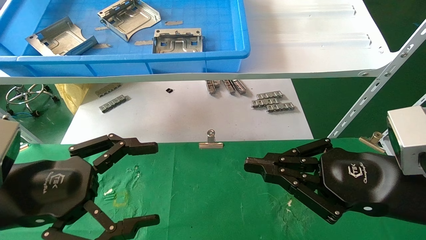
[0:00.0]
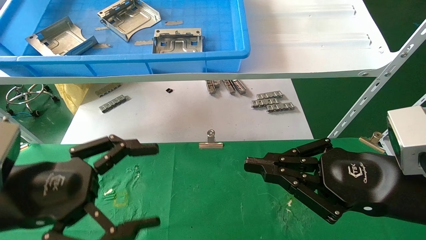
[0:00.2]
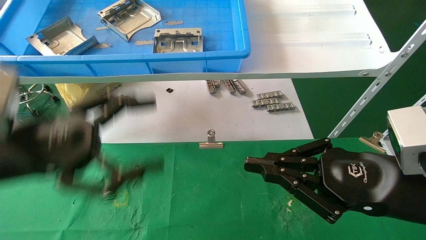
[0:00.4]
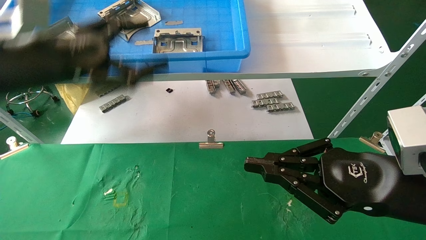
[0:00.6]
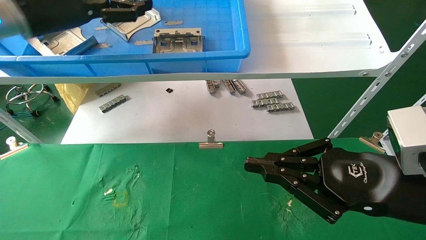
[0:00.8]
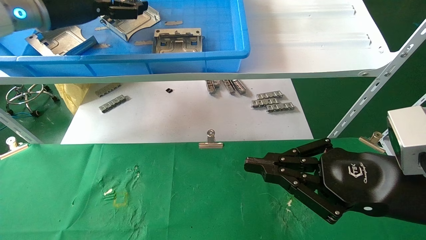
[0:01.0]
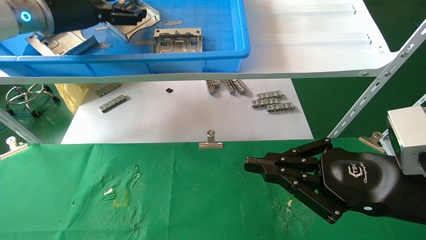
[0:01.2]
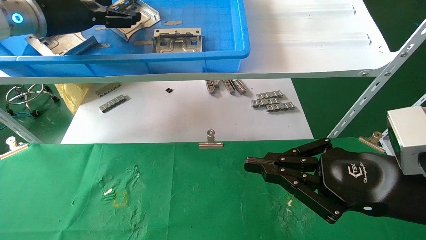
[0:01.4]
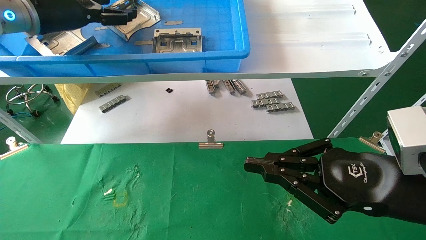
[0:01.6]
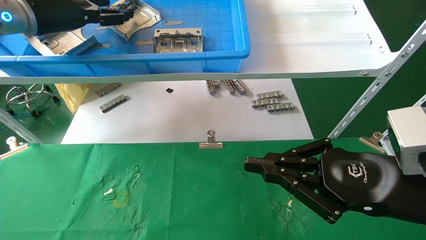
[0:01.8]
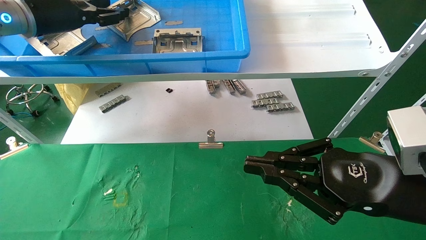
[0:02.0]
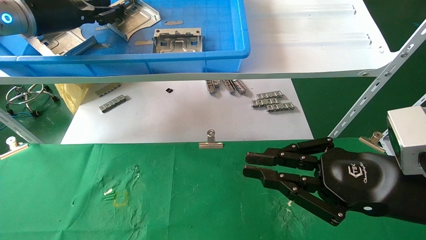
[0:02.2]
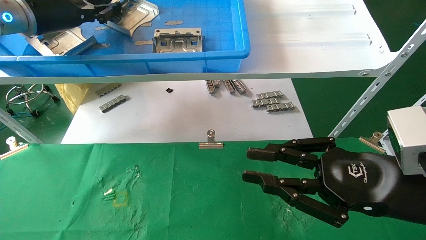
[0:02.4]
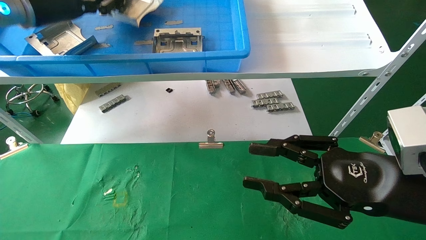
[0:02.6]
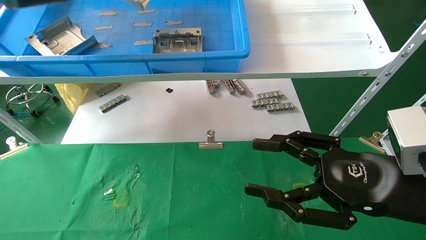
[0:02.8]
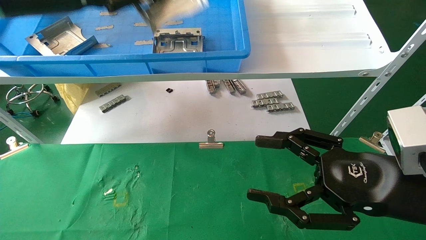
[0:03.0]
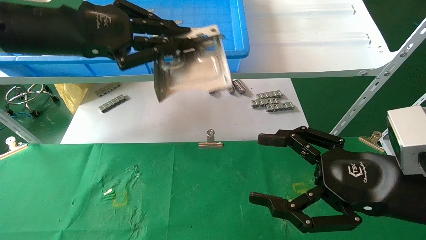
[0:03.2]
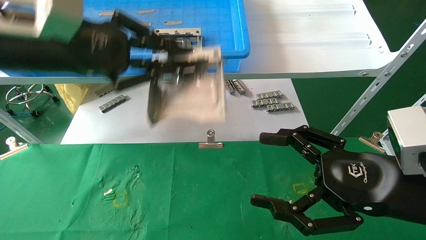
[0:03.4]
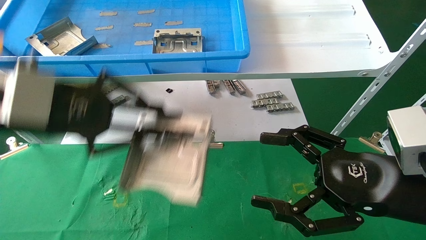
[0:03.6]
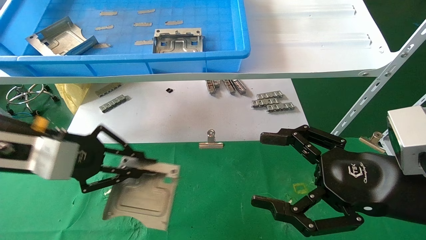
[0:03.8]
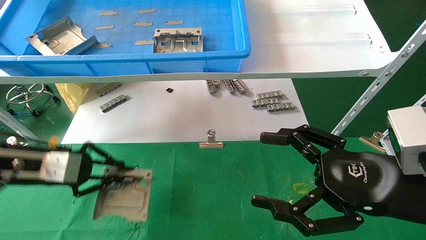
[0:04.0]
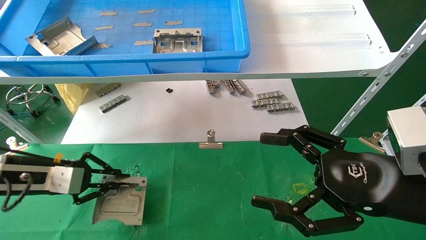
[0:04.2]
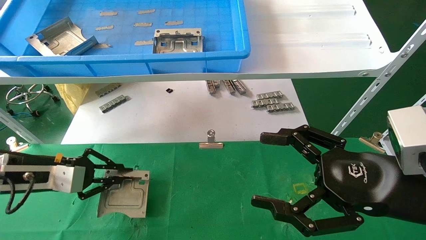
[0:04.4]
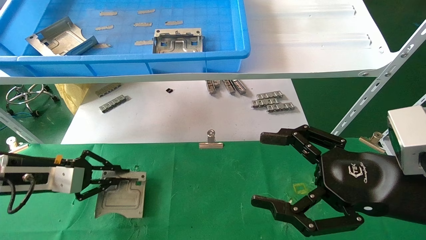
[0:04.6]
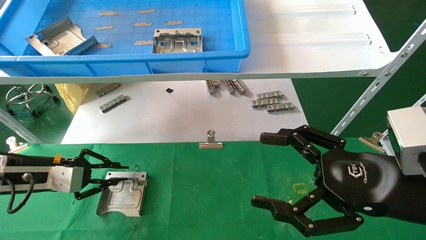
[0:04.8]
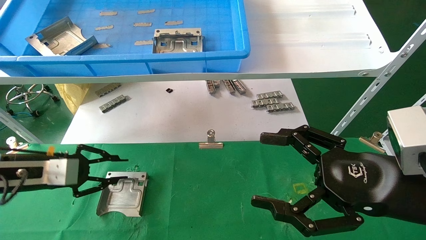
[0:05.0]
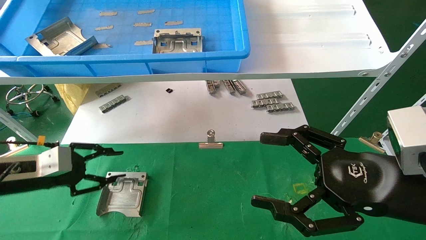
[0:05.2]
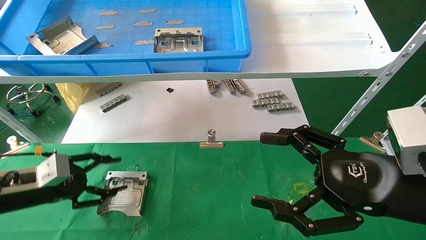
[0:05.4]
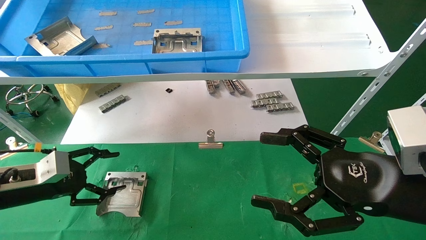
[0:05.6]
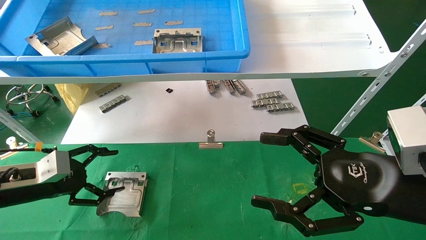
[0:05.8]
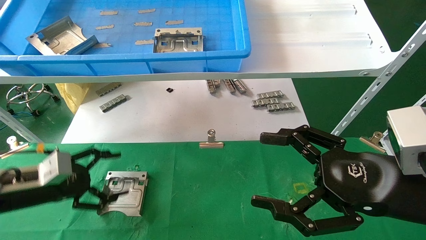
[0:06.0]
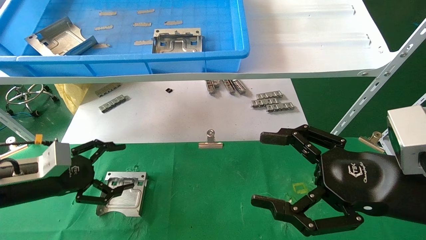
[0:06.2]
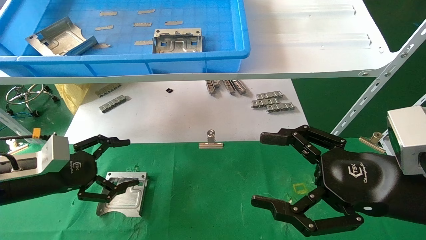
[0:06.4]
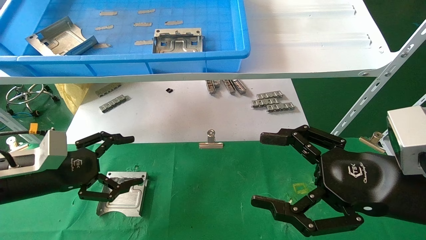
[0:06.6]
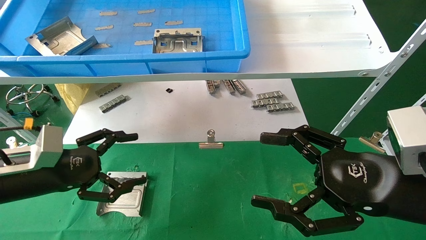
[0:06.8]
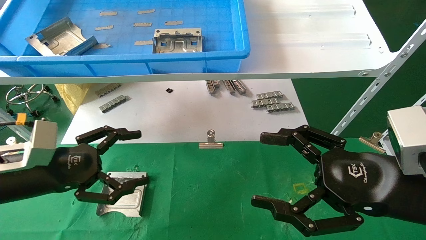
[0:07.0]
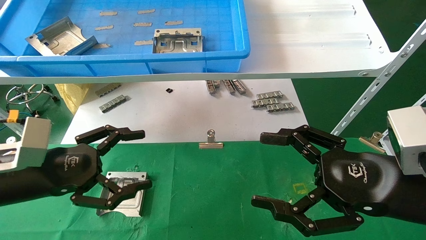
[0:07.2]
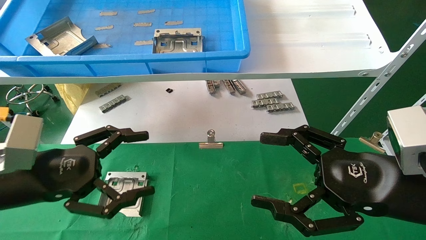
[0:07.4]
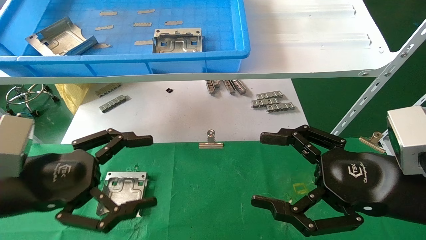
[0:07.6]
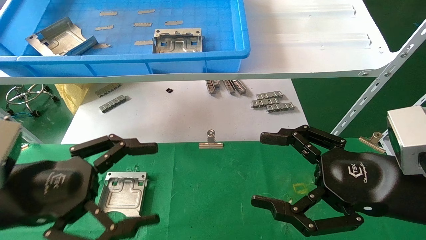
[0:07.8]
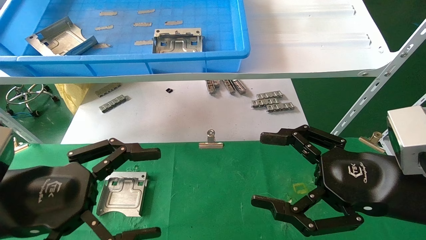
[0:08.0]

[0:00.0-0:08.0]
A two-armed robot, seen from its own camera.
Task of the whole recording: use the mechanical arm to pick up the parts and place them on the table.
Step, 0:00.4 to 0:03.0: Pick up the hard drive bracket from the feeding area.
Step, 0:03.2 to 0:05.8: Place the hard drive bracket into the box.
0:00.0 to 0:01.6: The left gripper moves forward and upward, approximately 30 cm.
0:01.6 to 0:03.2: The right gripper opens; the left gripper travels backward and to the right by about 10 cm, and closes up.
0:03.2 to 0:04.8: The left gripper travels downward and to the left by about 30 cm.
0:04.8 to 0:06.4: The left gripper opens up.
0:06.4 to 0:08.0: The left gripper moves backward, to the right and upward, some 15 cm.
